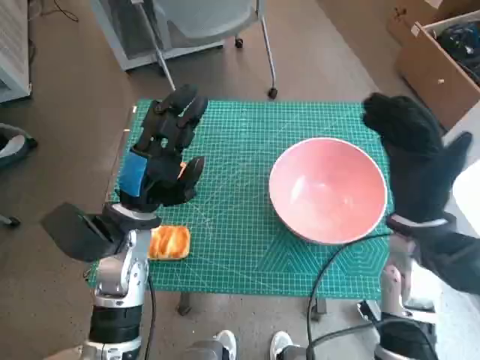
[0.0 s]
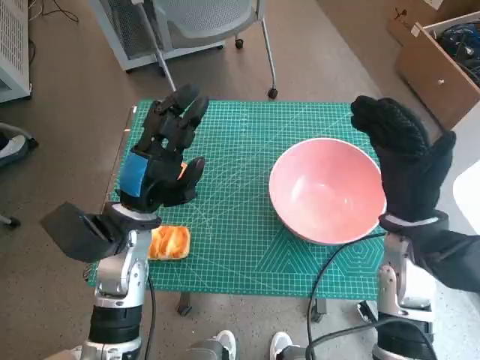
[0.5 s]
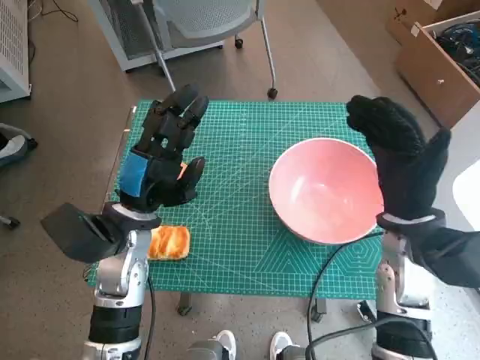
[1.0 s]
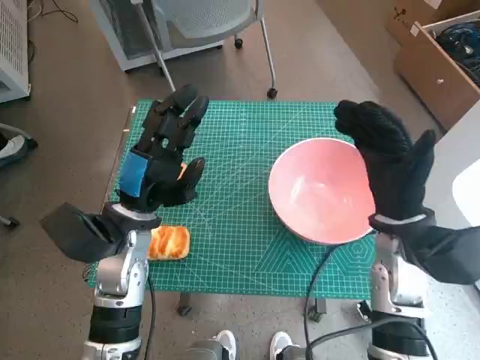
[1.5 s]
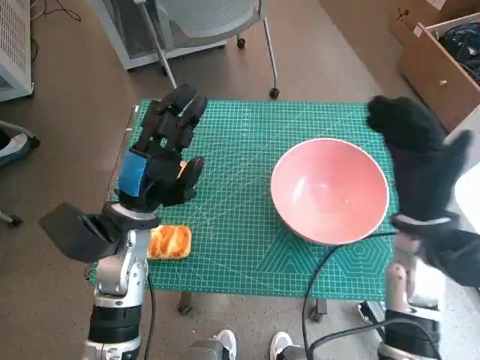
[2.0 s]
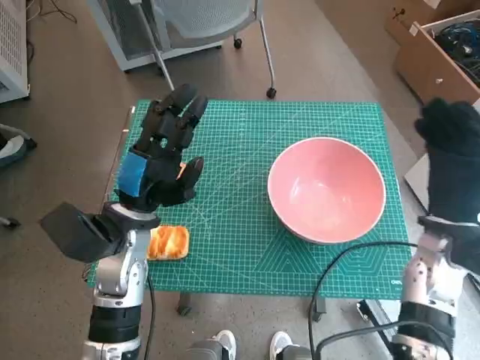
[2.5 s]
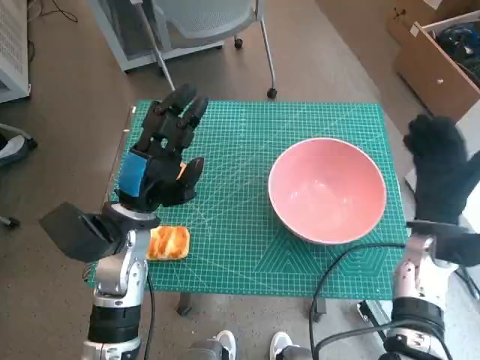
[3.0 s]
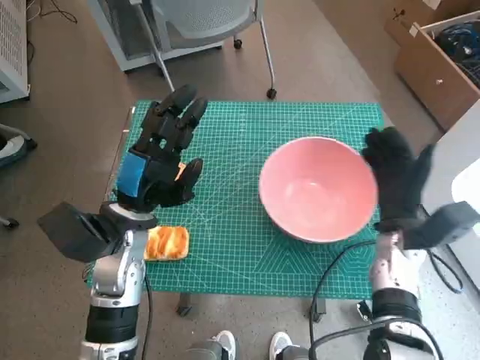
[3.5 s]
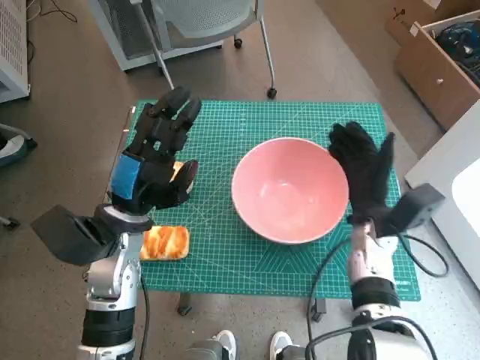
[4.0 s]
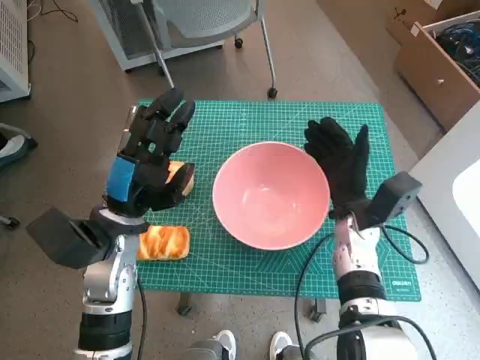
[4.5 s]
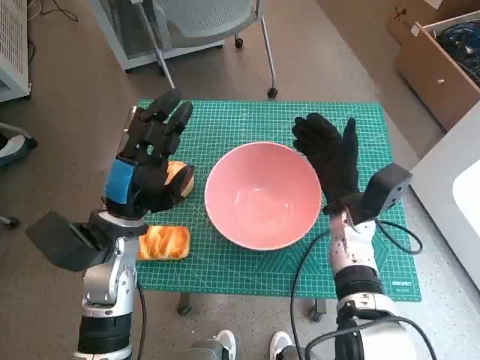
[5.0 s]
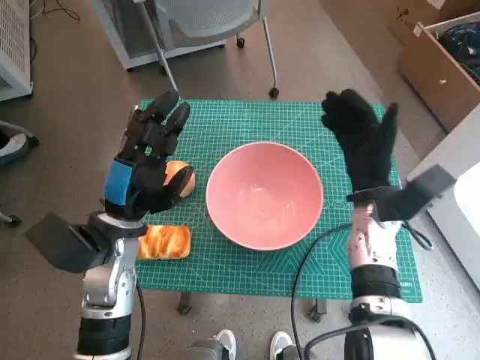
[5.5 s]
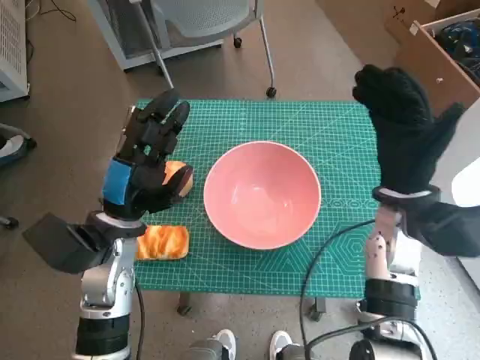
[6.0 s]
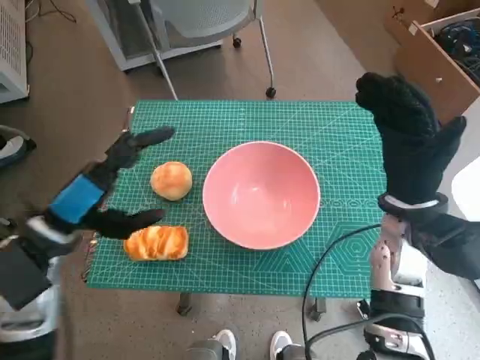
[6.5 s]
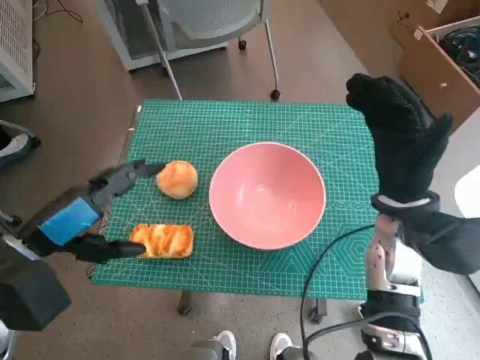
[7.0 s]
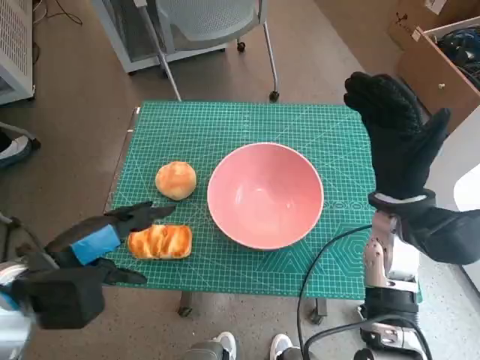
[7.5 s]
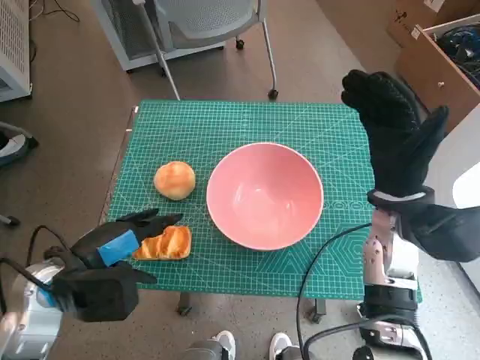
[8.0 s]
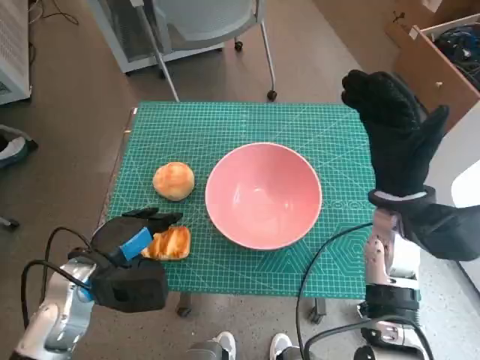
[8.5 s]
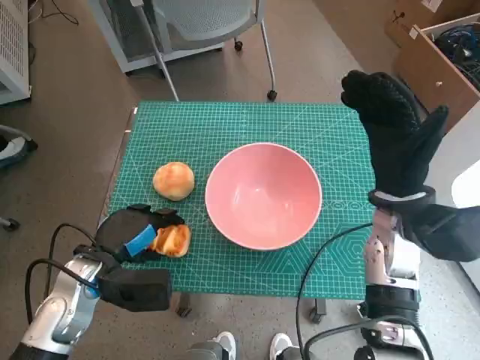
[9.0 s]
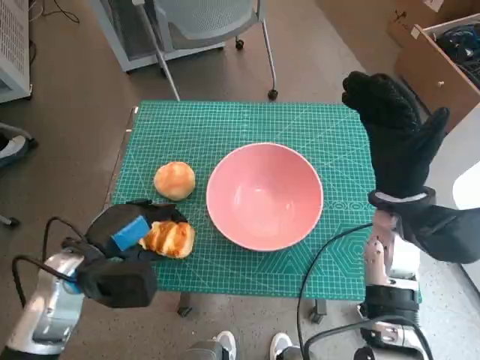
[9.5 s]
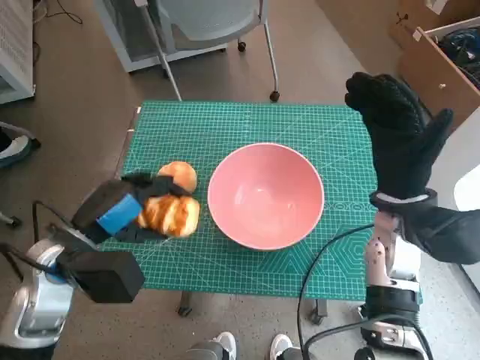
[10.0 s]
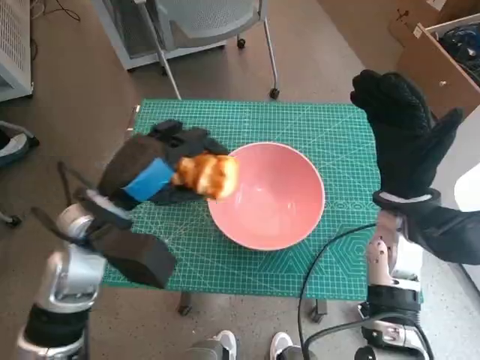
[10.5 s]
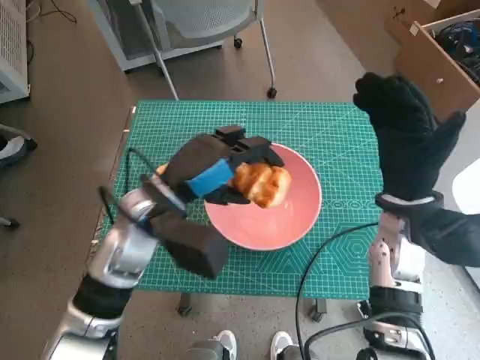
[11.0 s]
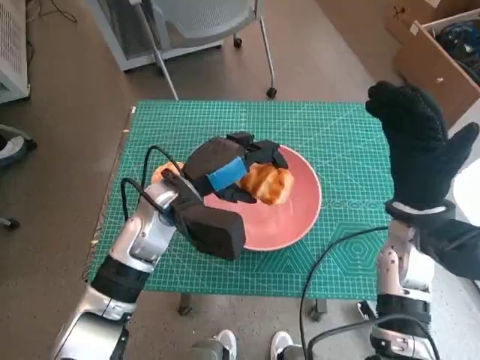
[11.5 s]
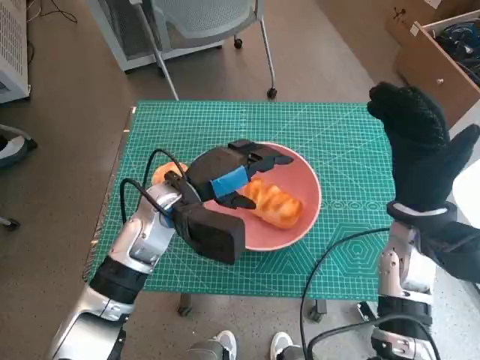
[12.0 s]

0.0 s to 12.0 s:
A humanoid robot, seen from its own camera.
Step, 0.0 to 5.0 s: Move the pink bowl to the center of table with right hand.
Step, 5.5 to 8.5 s: Grasp the long bread with left hand.
2.0 to 4.0 s: The right hand travels downward by some 10 cm.
4.0 to 6.0 s: The right hand moves upward, roughly 10 cm.
6.0 to 8.0 s: The left hand heads backward and to the left, covering about 10 cm.
10.0 to 12.0 s: The left hand heads to the right and forward, covering approximately 15 cm.

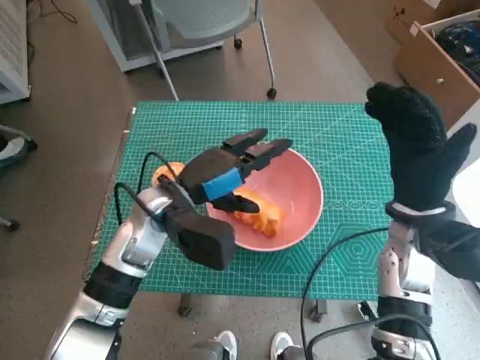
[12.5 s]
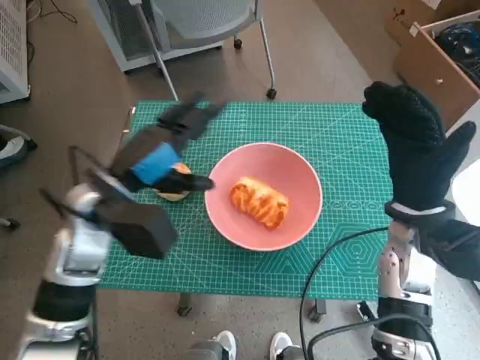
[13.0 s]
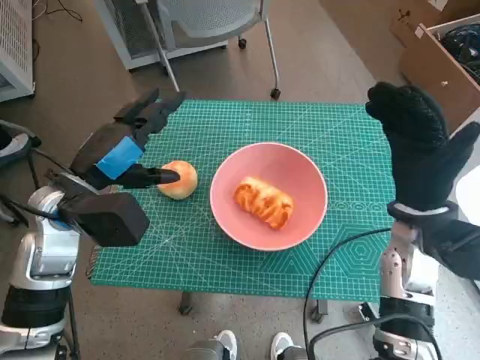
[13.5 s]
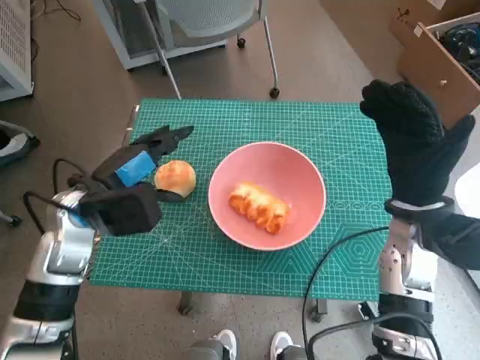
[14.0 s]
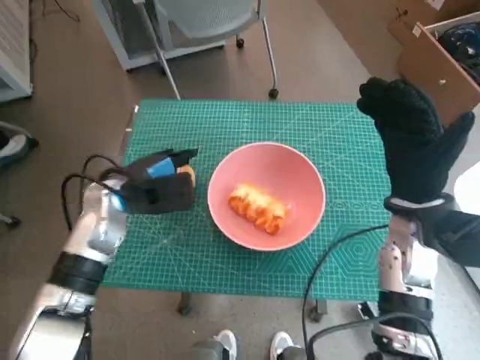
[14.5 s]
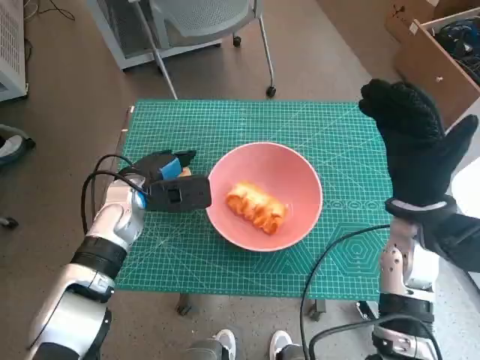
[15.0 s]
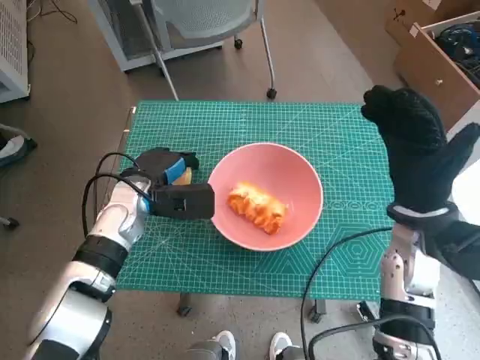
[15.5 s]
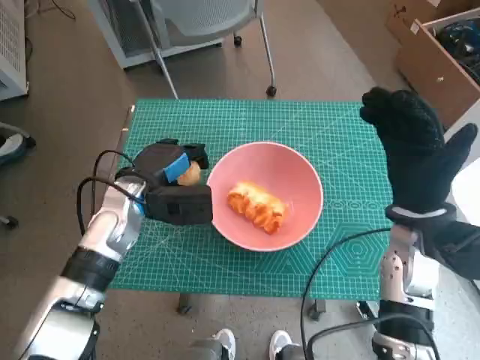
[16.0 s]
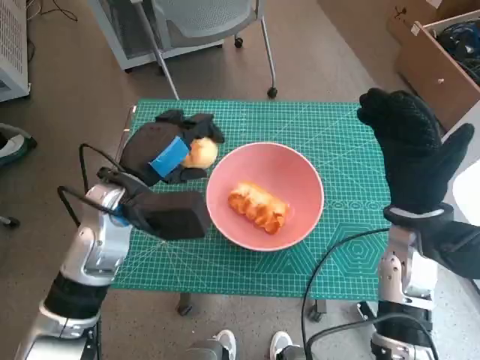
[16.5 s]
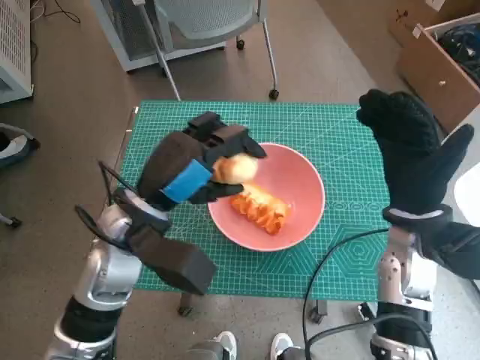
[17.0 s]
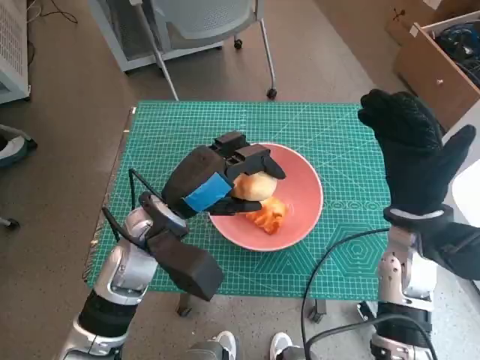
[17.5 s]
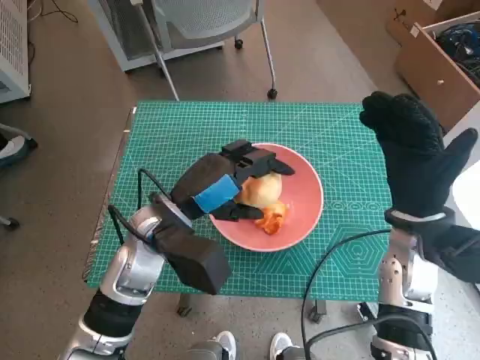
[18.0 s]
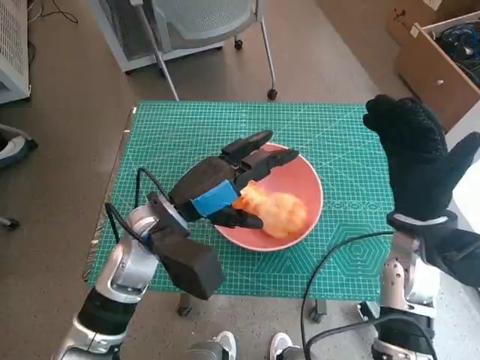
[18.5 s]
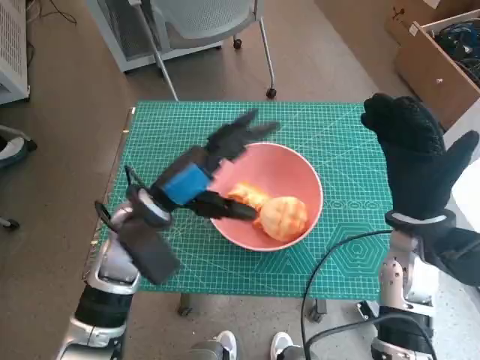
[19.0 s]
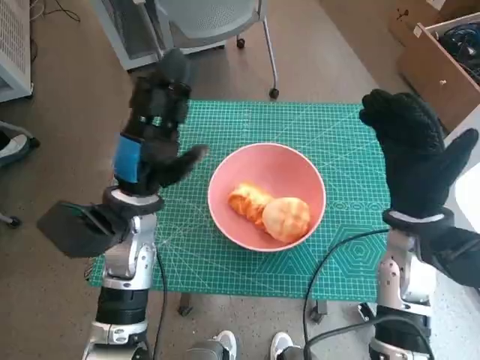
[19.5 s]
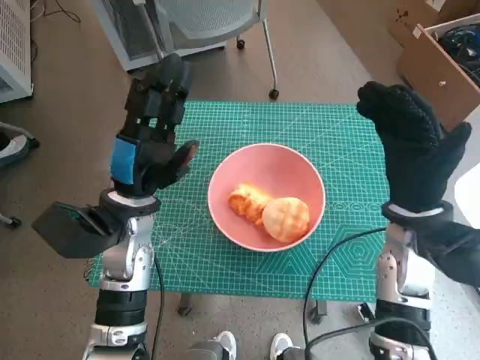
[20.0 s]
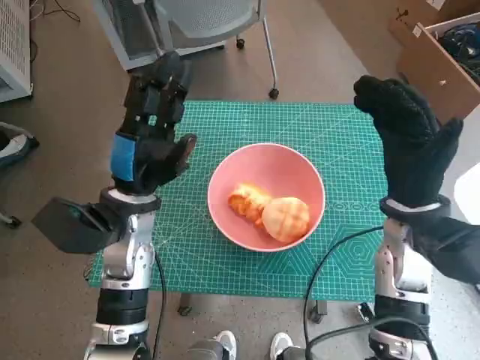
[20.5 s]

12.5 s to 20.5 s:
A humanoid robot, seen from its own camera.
Step, 12.5 to 15.0 s: Grasp the round bread with left hand.
Step, 15.5 to 18.5 s: Place the round bread in pink bowl with left hand.
12.5 to 14.5 s: The left hand is displaced to the left by about 10 cm.
14.5 to 16.5 s: The left hand moves some 5 cm.
16.5 to 18.5 s: The left hand moves about 5 cm.
